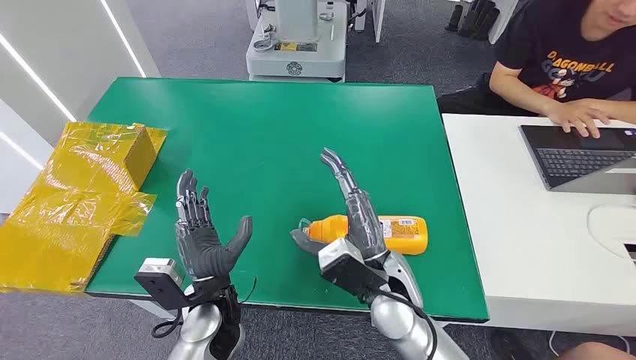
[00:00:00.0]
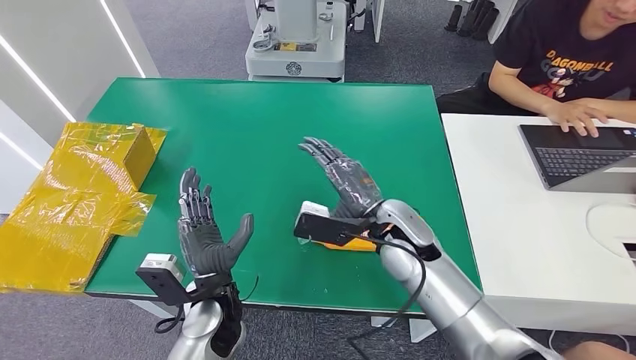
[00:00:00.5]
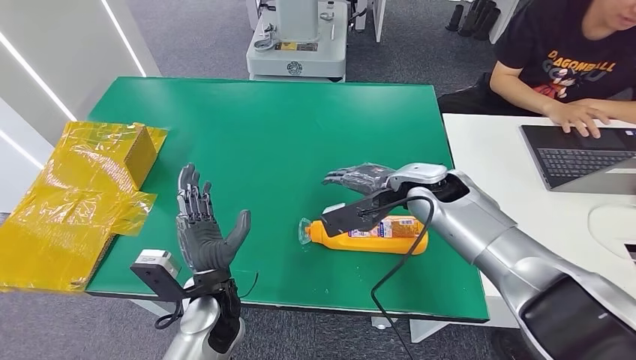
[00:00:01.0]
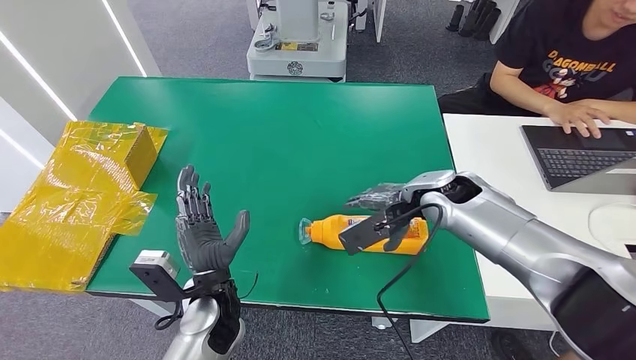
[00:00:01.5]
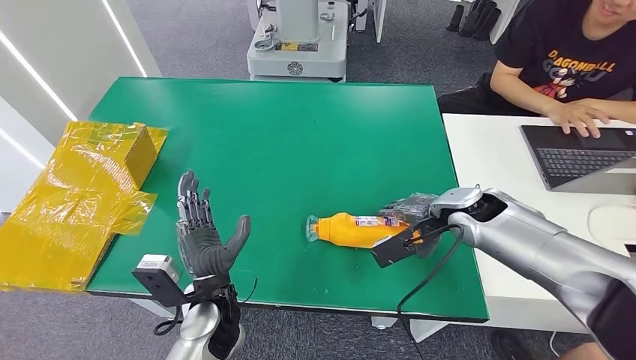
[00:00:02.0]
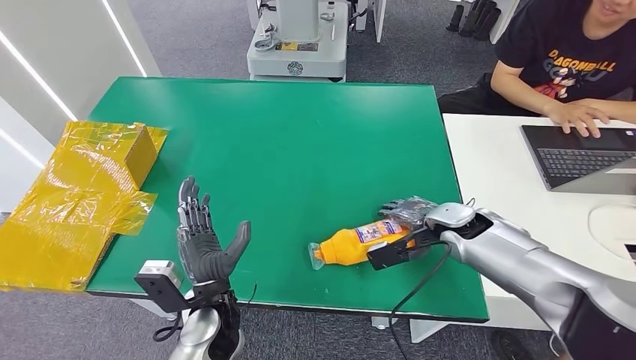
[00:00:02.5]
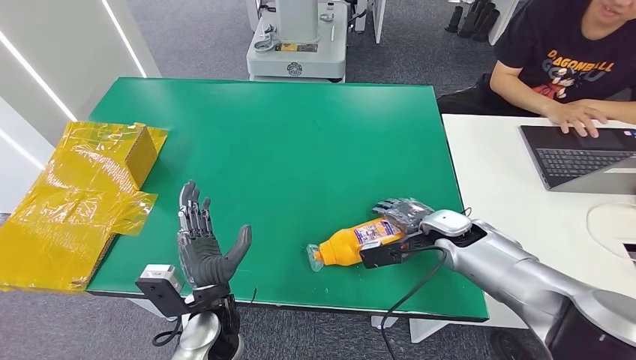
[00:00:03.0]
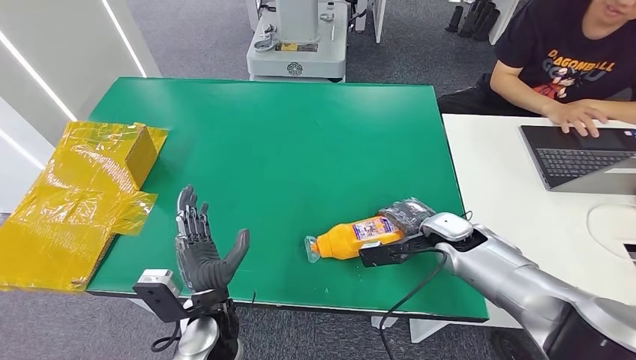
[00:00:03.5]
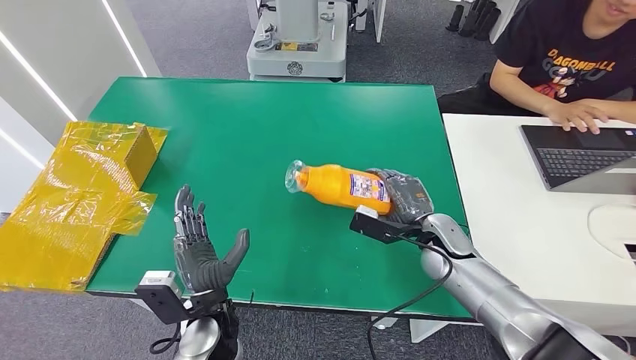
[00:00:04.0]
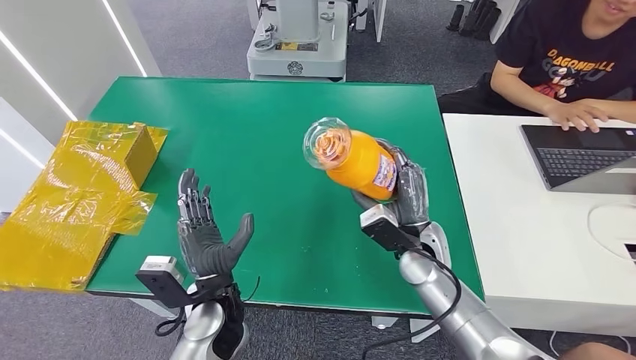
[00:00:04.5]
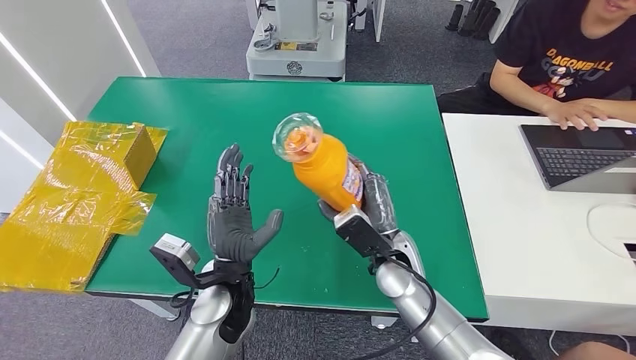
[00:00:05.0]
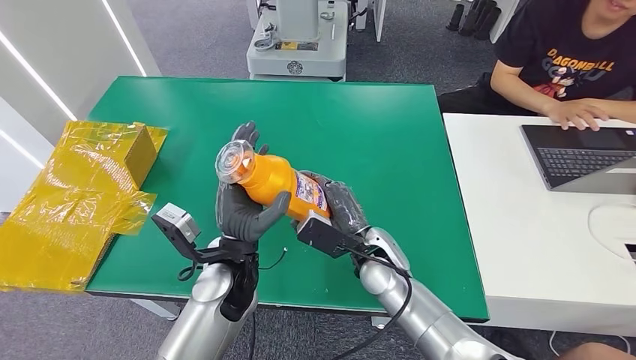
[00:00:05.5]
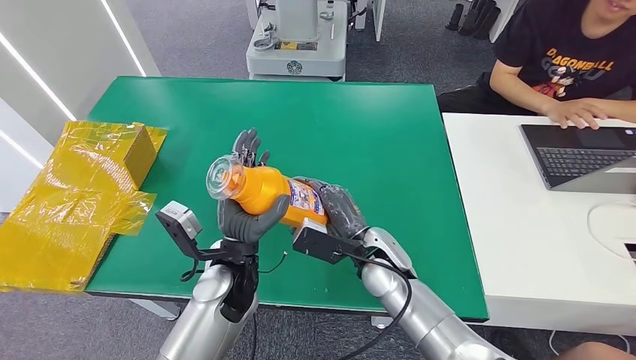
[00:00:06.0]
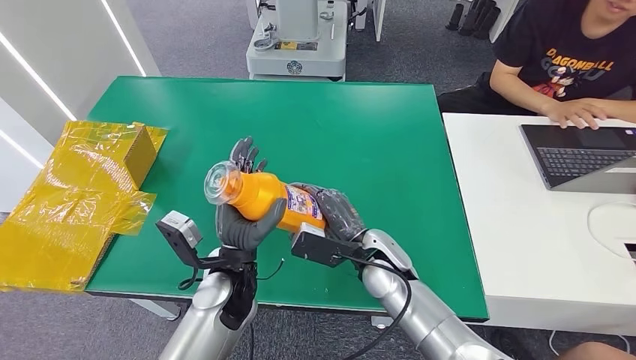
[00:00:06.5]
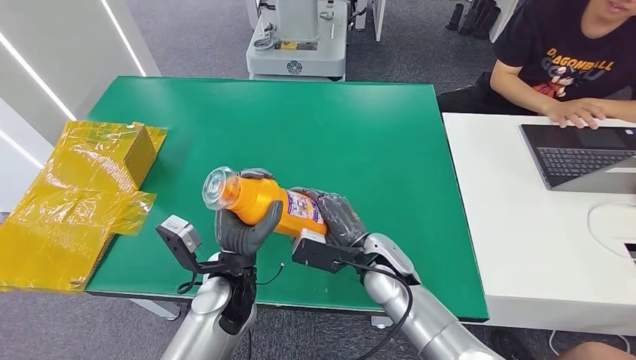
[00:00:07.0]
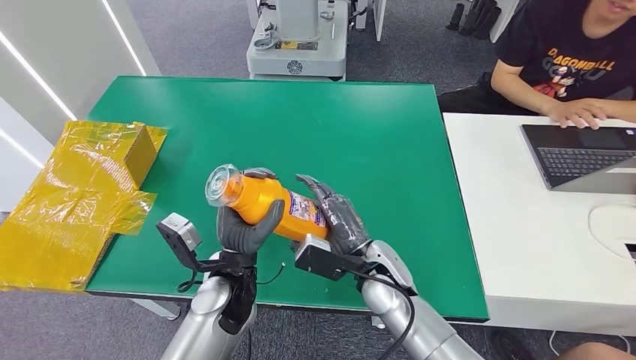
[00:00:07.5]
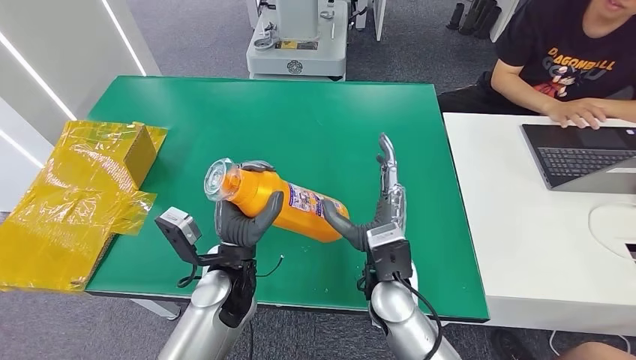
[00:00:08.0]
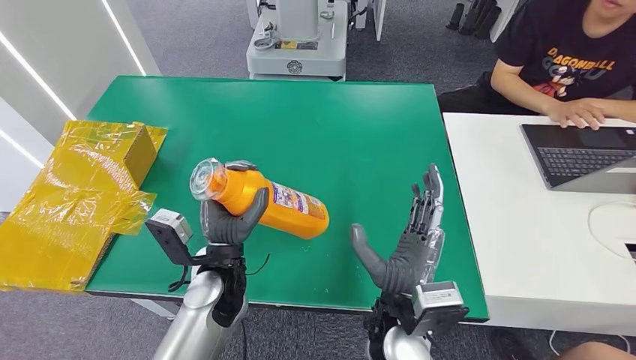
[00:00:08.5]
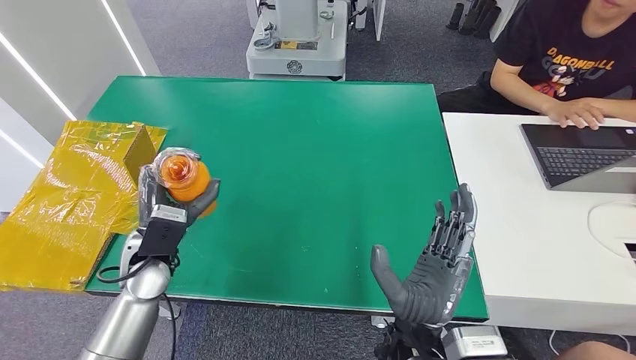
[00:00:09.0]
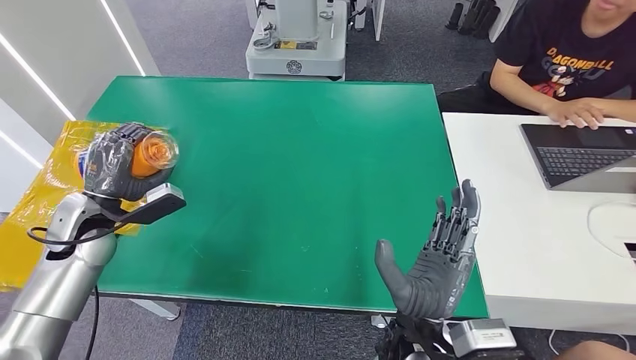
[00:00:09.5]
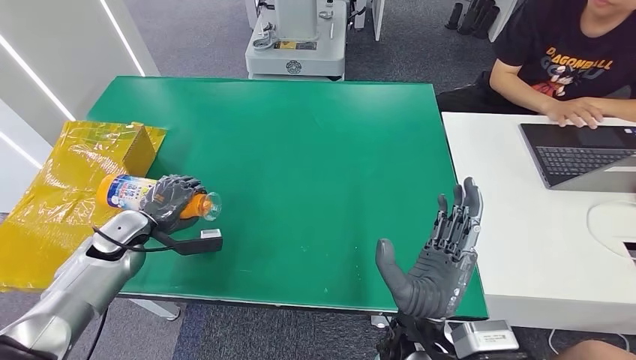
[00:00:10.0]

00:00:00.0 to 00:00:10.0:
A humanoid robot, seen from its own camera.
Step, 00:00:00.0 to 00:00:05.0: Pick up the bottle from the table.
Step, 00:00:05.5 to 00:00:10.0: Turn the bottle to the front side.
00:00:02.0 to 00:00:04.0: The right hand shifts about 10 cm downward.
00:00:04.0 to 00:00:06.0: The right hand heads to the left, covering roughly 15 cm. The left hand shifts about 10 cm forward and upward.
00:00:06.0 to 00:00:08.0: The right hand changes place by approximately 5 cm.

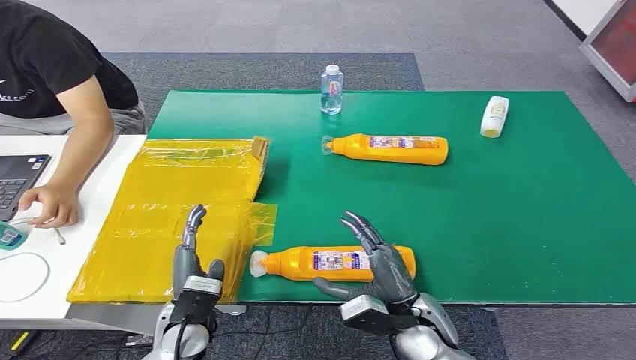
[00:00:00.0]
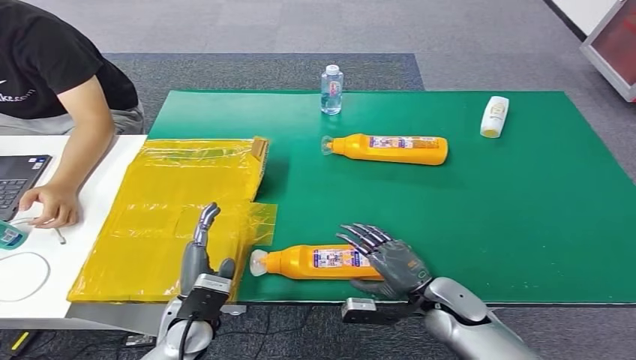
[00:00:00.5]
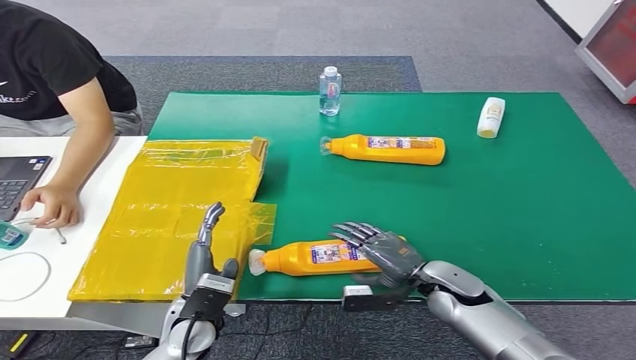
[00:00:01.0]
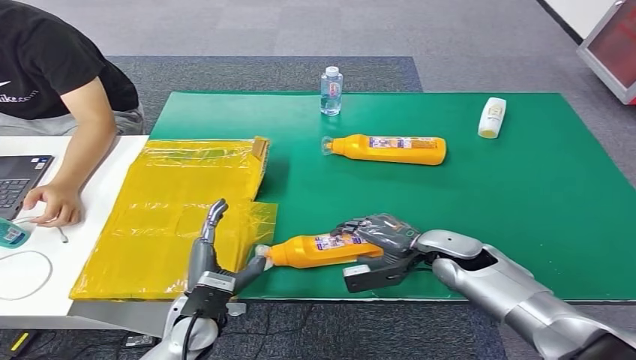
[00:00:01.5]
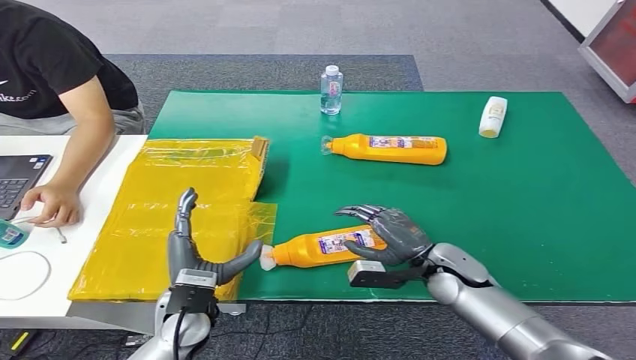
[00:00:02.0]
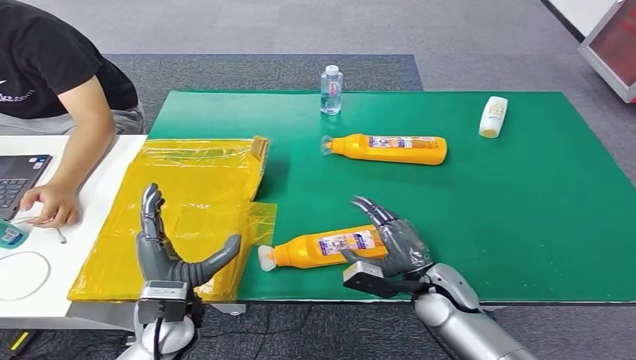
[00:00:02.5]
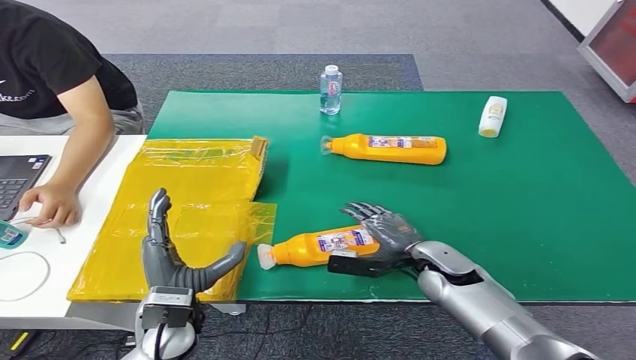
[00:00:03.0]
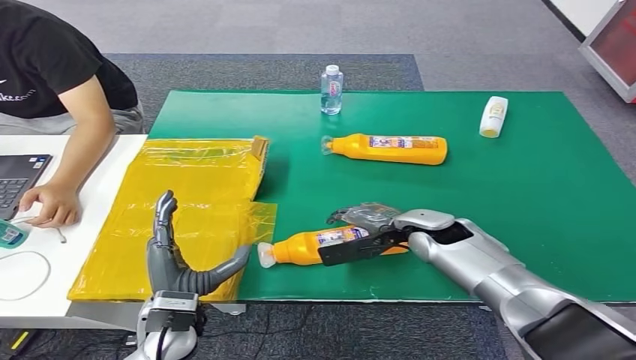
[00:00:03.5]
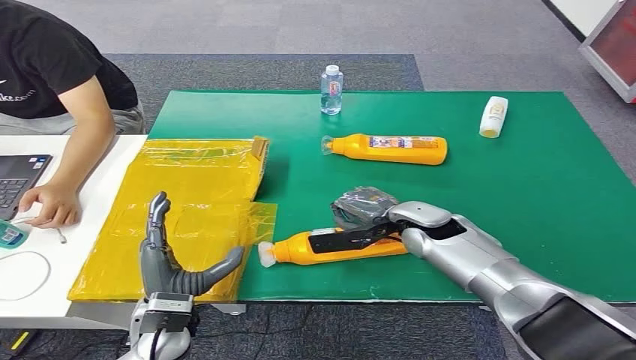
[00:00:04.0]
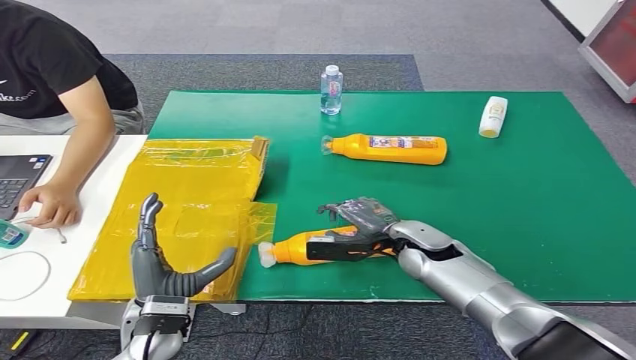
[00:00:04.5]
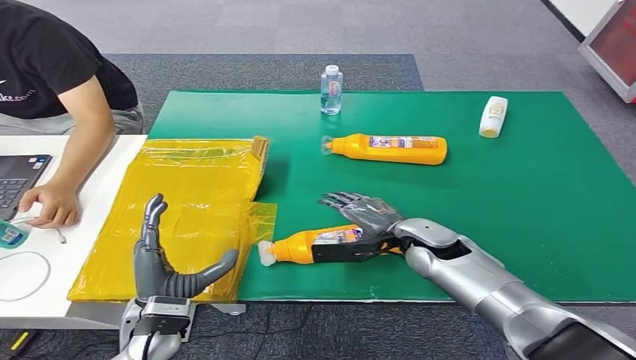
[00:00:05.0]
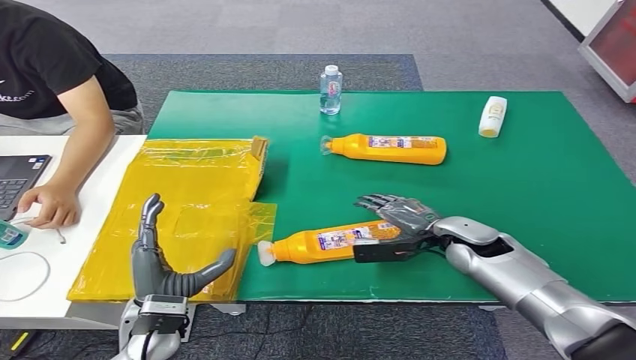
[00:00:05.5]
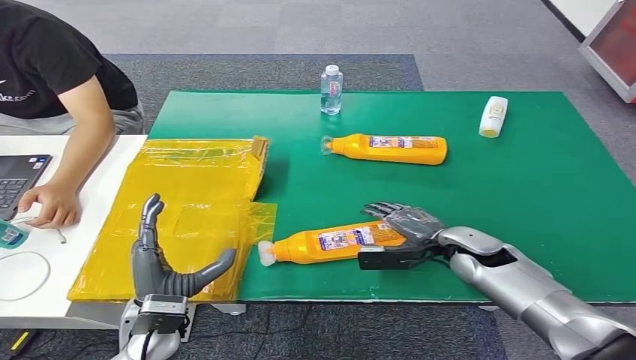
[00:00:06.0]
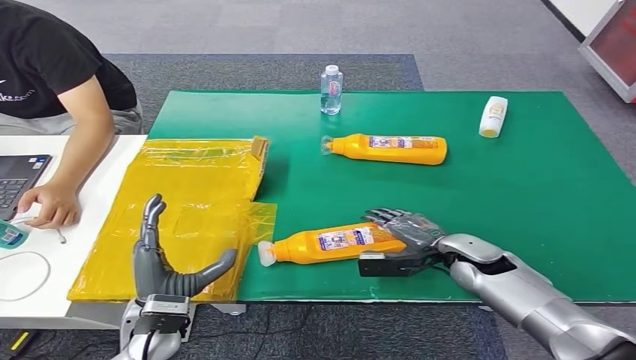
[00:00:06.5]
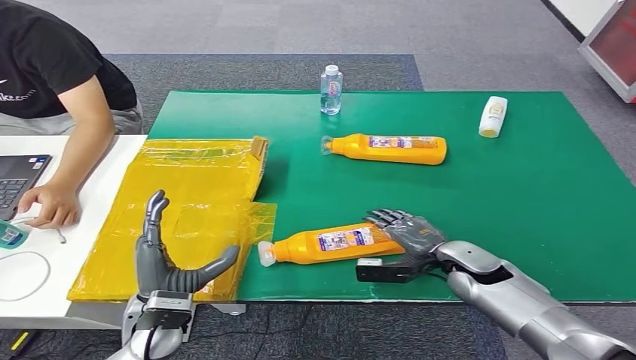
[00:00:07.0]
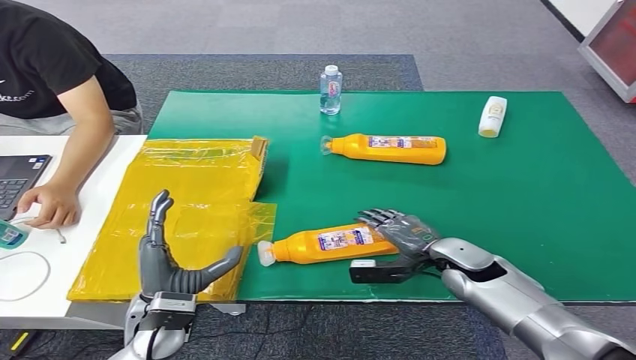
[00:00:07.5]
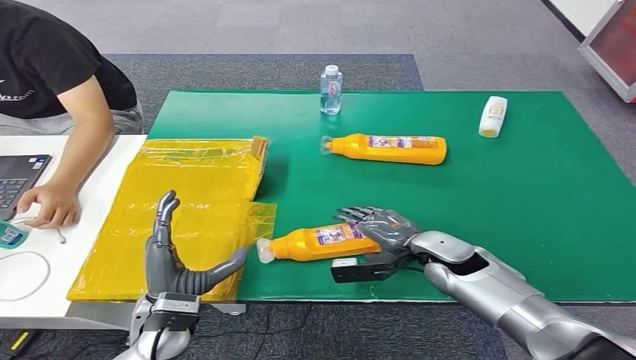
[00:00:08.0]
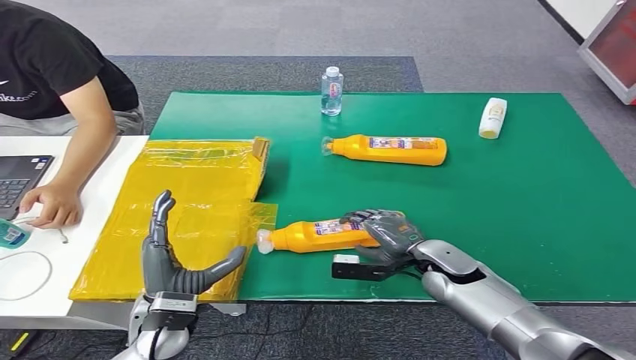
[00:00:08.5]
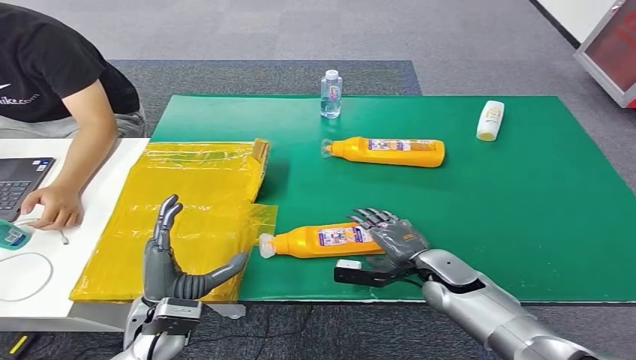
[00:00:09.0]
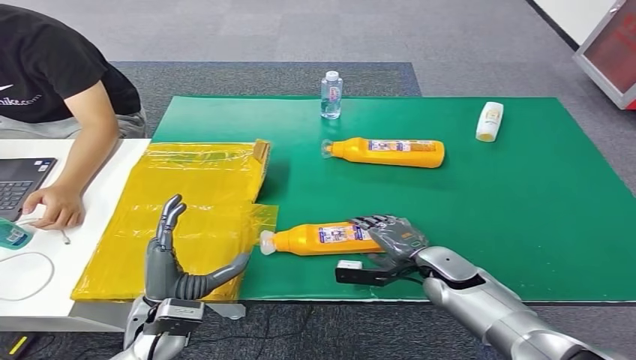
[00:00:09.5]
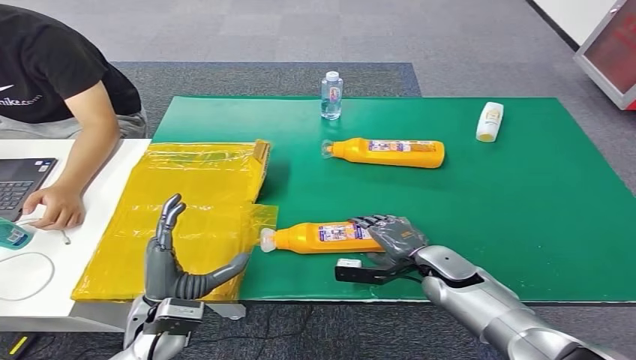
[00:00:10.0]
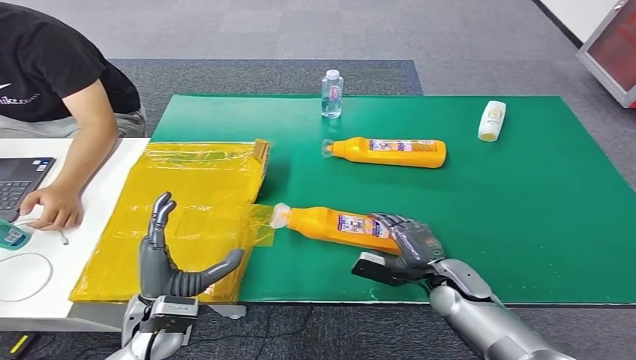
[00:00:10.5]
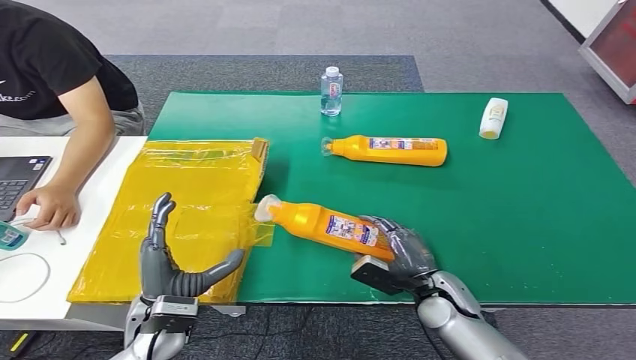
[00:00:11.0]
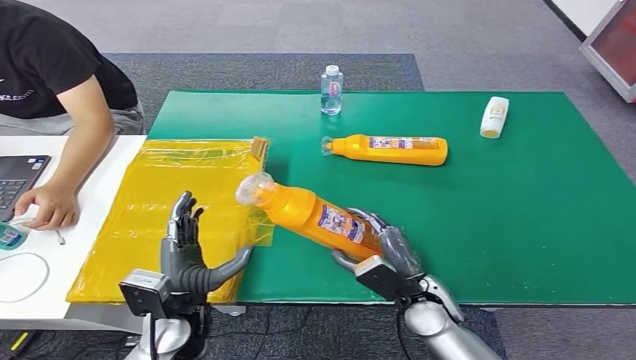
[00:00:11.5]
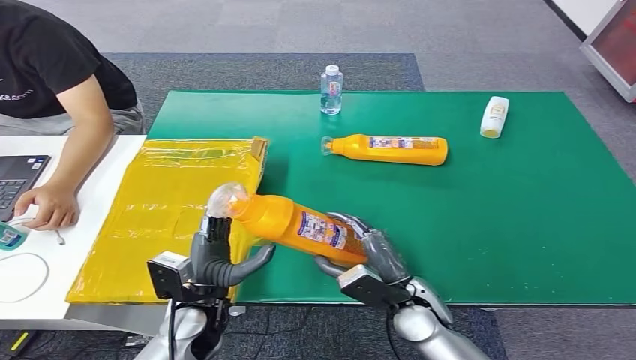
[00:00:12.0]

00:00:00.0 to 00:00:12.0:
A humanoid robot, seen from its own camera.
Step, 00:00:00.0 to 00:00:11.0: Pick up the bottle from the table.
00:00:02.0 to 00:00:04.0: The right hand goes approximately 10 cm forward and upward.
00:00:04.0 to 00:00:06.0: The right hand shifts some 10 cm to the right.
00:00:06.0 to 00:00:08.0: The right hand ends up some 5 cm from where it was.
00:00:08.0 to 00:00:10.0: The right hand is displaced downward by some 5 cm.
